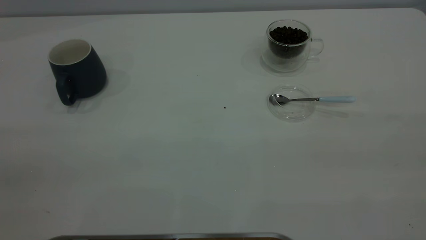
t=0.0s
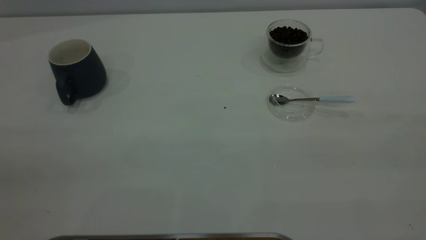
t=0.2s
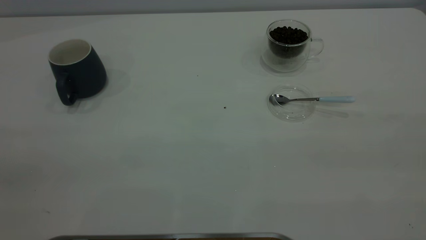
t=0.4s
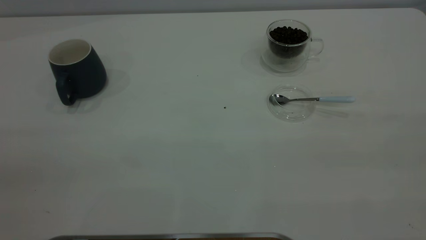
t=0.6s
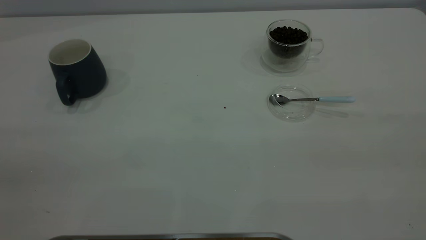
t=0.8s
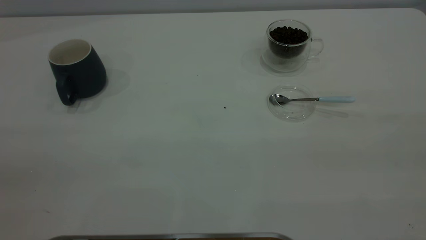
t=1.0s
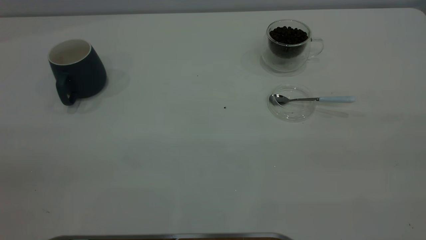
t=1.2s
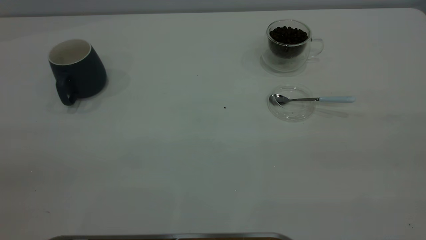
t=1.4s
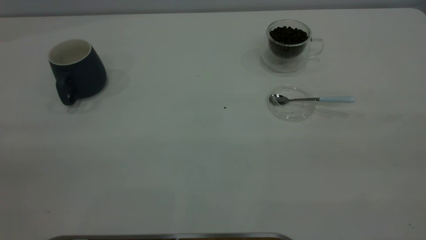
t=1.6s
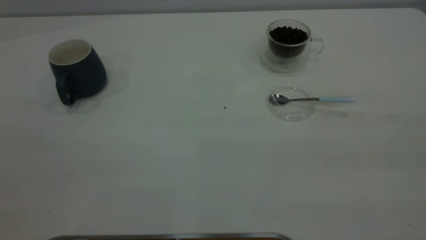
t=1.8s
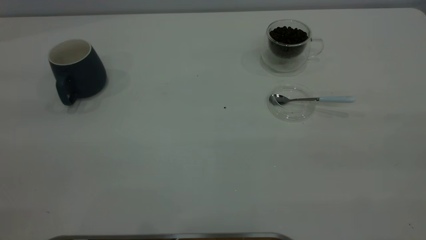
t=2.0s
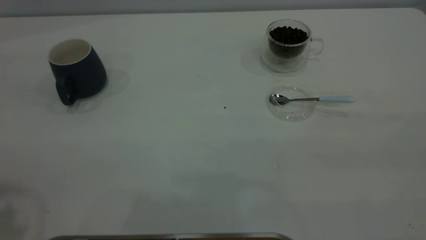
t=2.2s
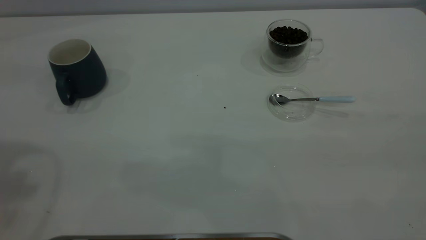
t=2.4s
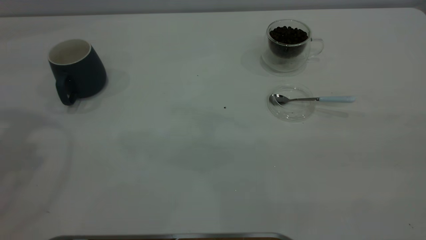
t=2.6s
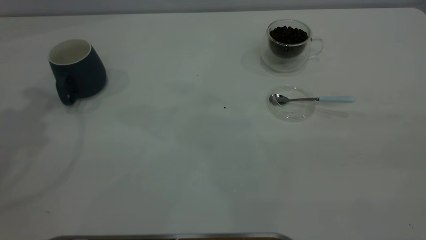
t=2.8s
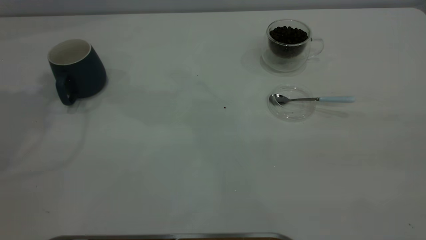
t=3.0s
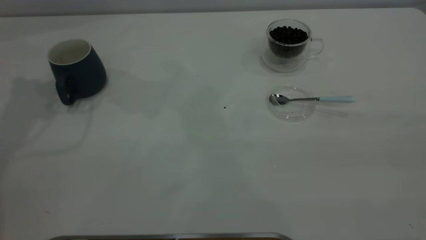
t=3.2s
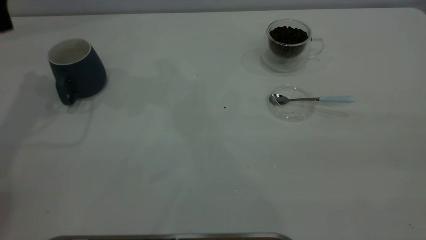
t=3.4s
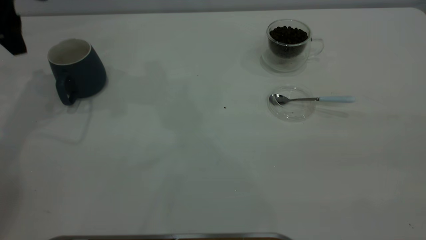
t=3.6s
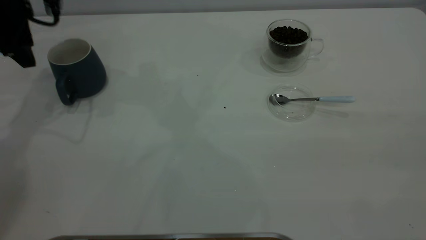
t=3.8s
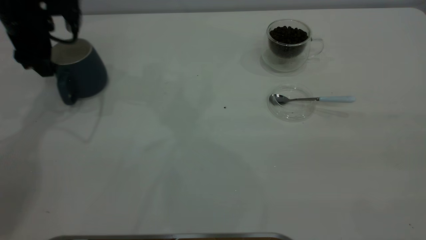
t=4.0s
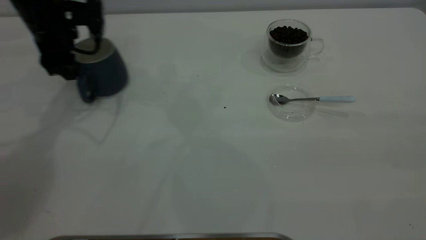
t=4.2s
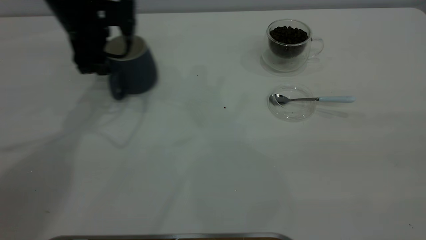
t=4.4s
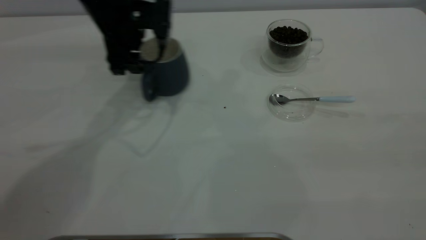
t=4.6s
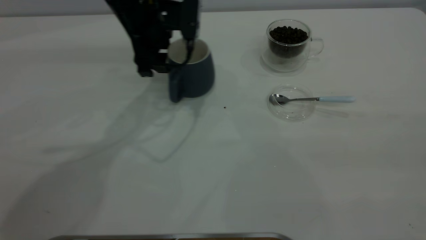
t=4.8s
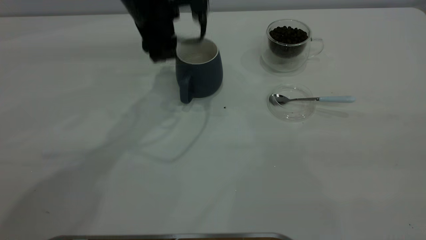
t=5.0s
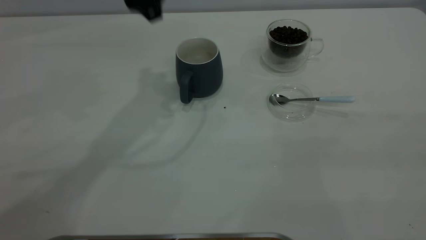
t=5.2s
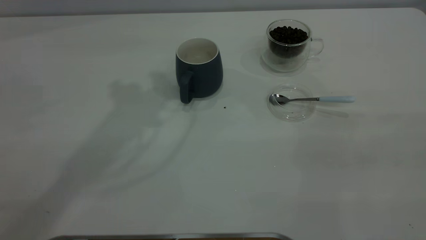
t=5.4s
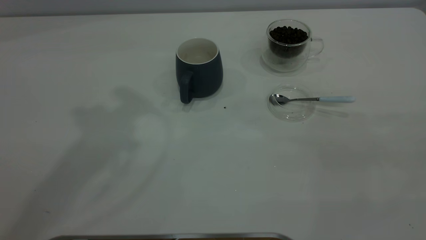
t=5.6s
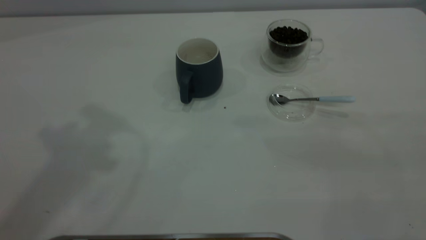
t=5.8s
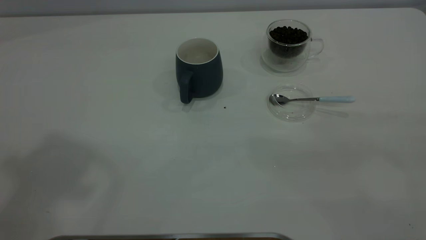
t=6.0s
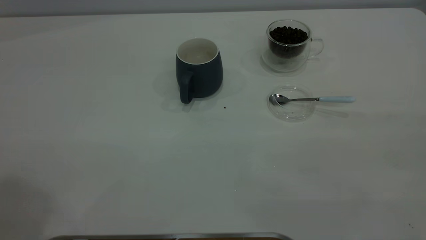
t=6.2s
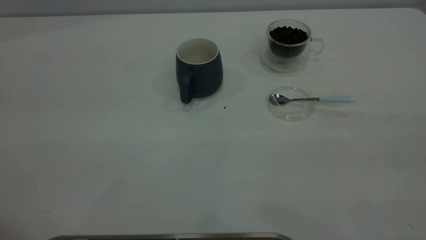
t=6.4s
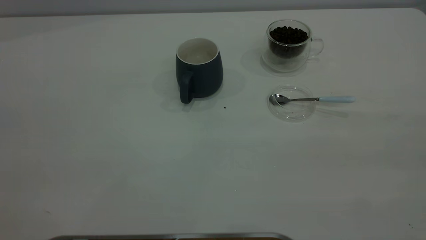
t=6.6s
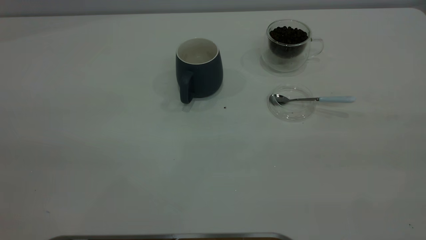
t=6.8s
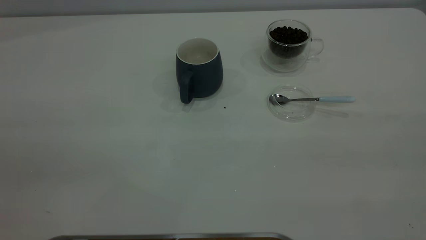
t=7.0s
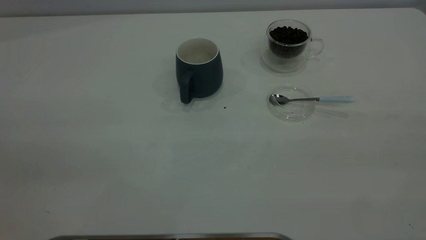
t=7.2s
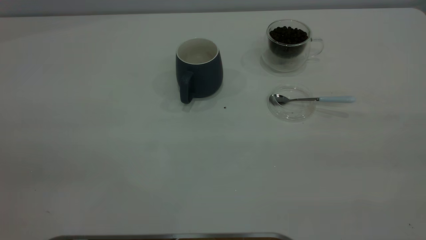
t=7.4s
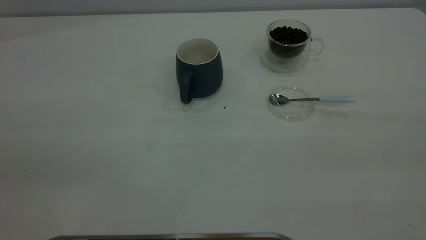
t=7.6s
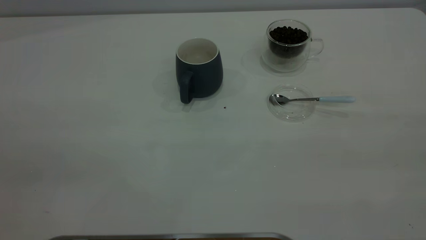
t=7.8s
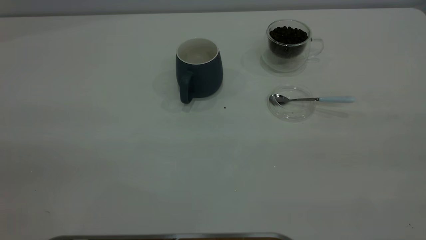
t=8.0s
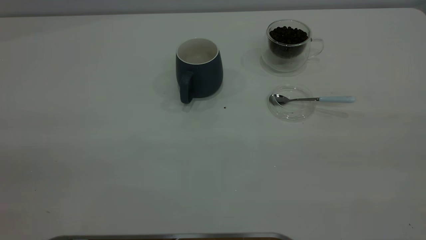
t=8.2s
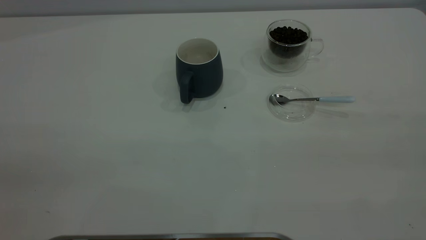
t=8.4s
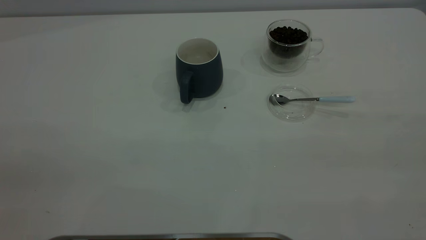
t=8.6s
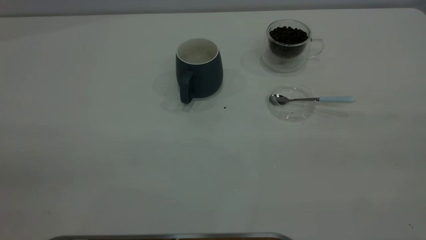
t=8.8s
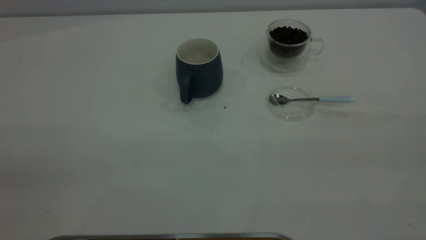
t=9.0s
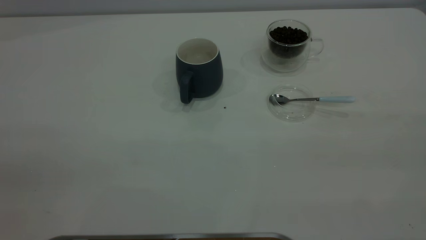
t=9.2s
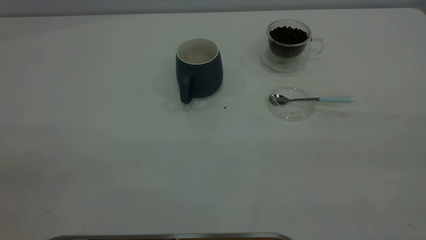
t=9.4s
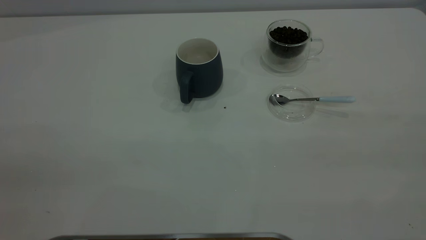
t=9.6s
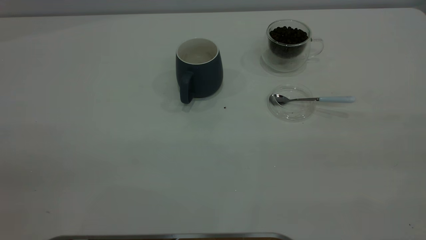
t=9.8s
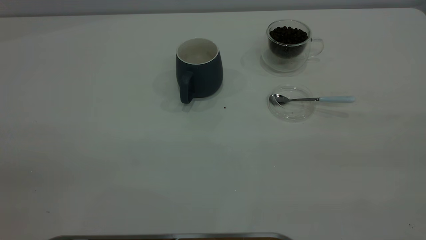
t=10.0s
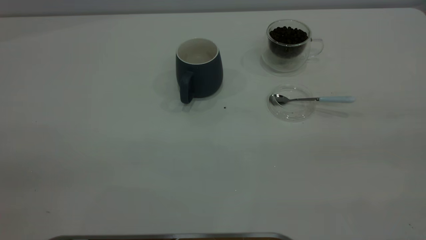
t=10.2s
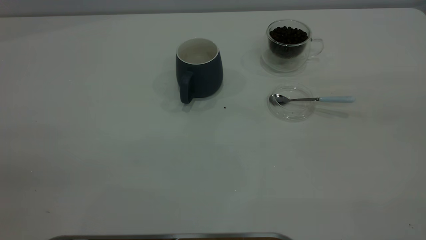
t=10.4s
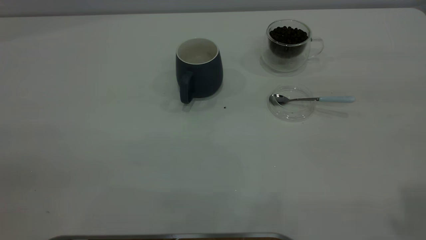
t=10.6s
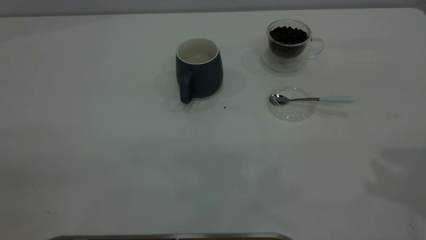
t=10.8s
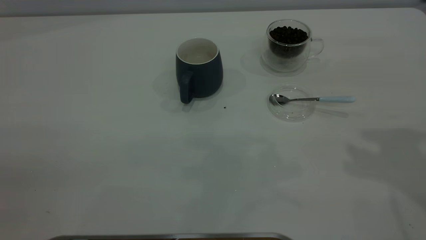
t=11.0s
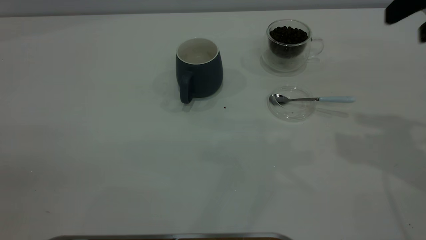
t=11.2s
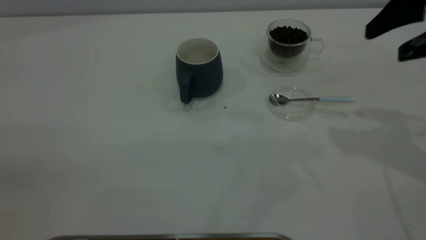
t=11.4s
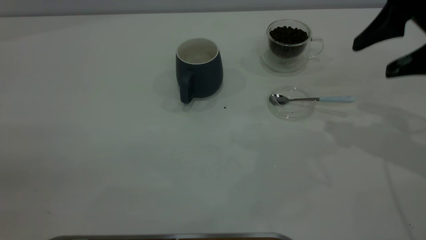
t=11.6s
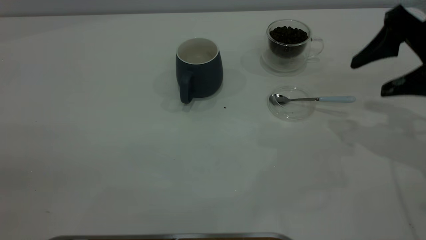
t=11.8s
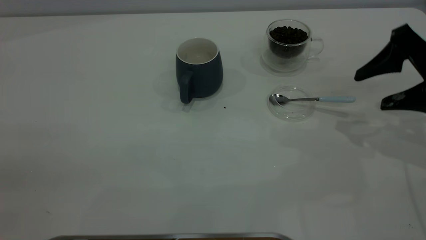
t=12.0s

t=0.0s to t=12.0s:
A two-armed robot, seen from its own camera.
Task of the whole recording: the left gripper place the grey cup in the center of the table, the right gripper take the blue spoon from the cup lid and scoop out the coffee beans from the coffee cup and put them into the grey cup, the right gripper put the spoon back into the cup lid.
Step, t=0.0s to t=5.0s: Move the cup to the center of view.
t=3.0s to t=4.4s: The left gripper is displaced downward and to the right by approximately 25 cm.
t=4.4s to t=6.0s: The left gripper moves upward and backward, about 50 cm.
t=10.4s to t=12.0s: The right gripper heads downward and forward, covering about 35 cm.

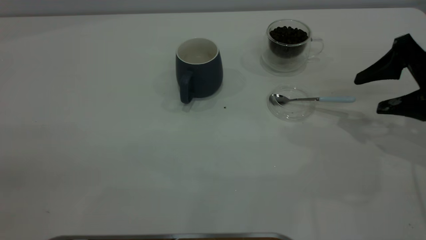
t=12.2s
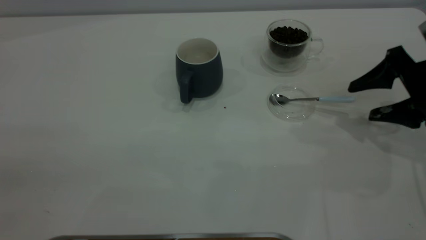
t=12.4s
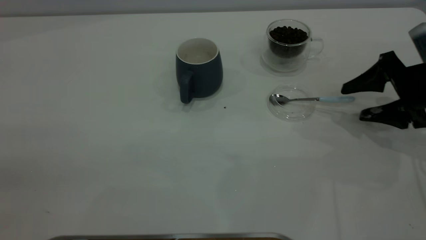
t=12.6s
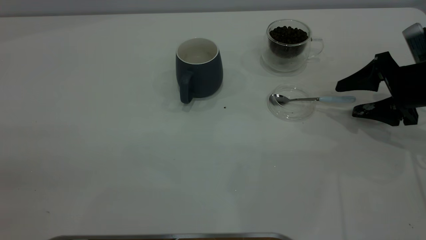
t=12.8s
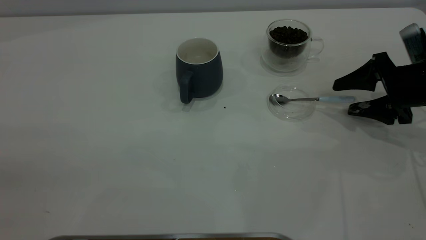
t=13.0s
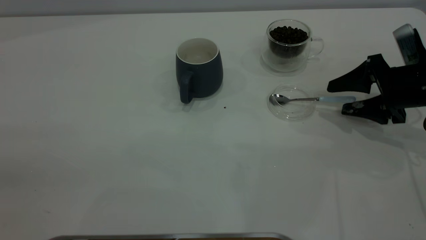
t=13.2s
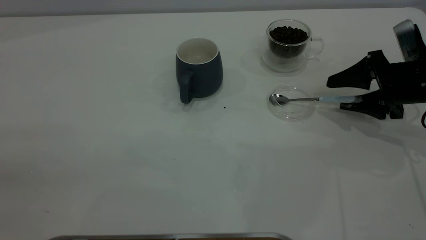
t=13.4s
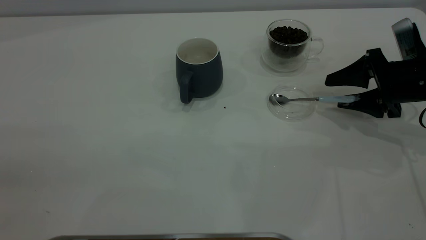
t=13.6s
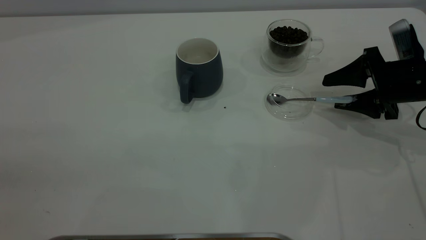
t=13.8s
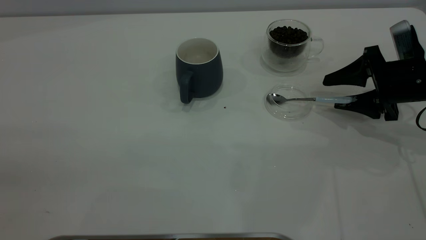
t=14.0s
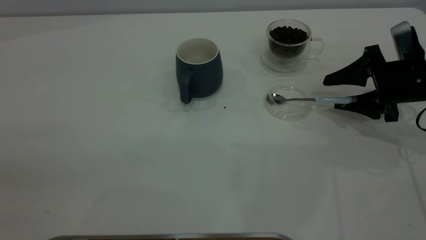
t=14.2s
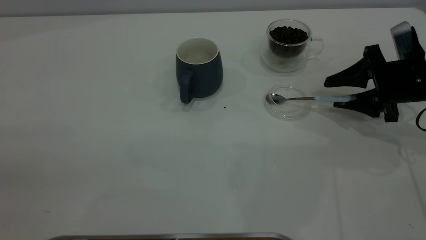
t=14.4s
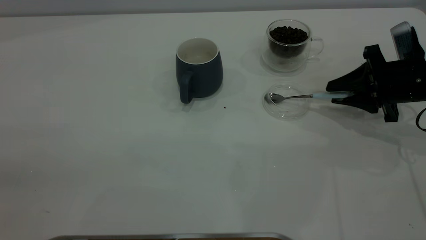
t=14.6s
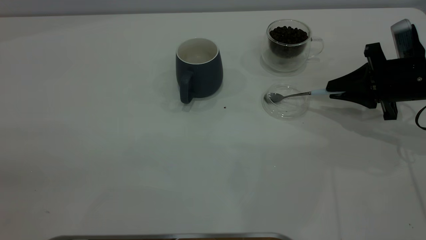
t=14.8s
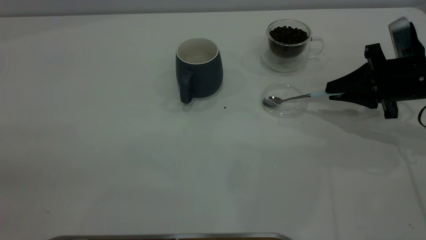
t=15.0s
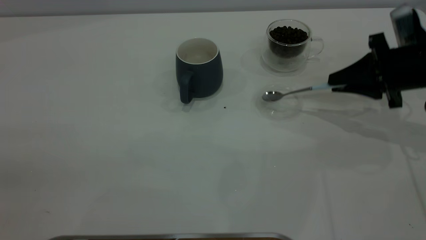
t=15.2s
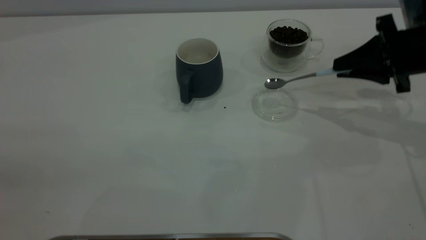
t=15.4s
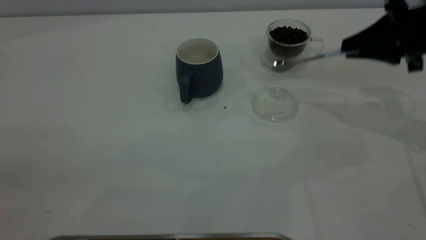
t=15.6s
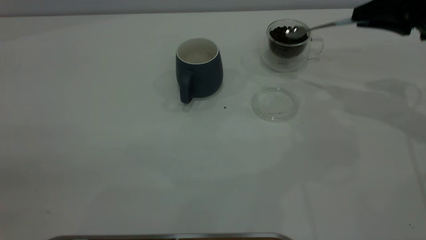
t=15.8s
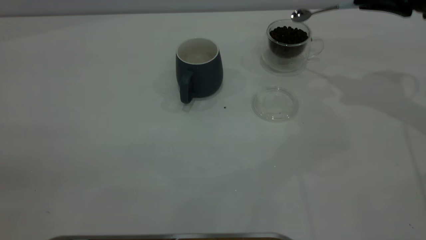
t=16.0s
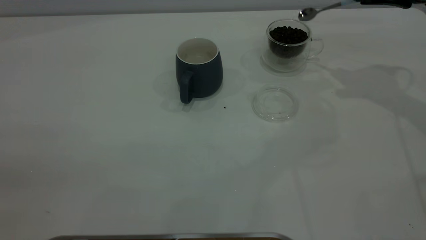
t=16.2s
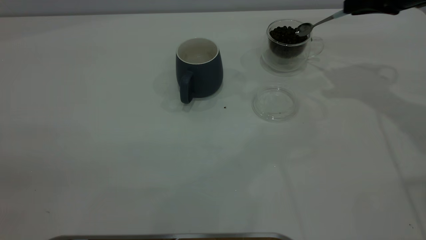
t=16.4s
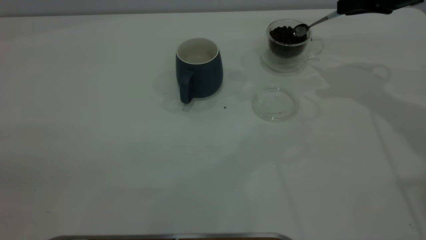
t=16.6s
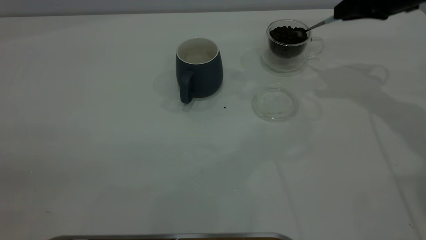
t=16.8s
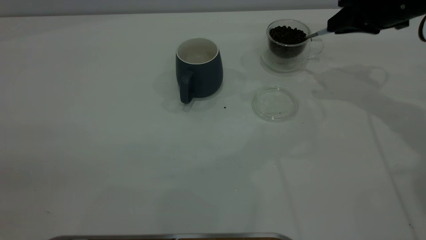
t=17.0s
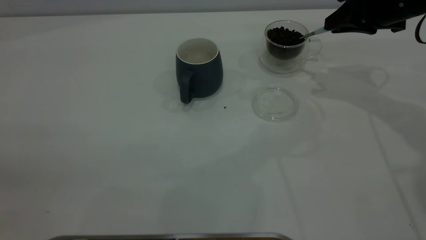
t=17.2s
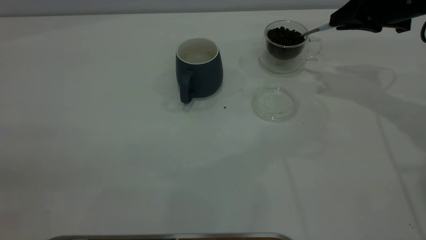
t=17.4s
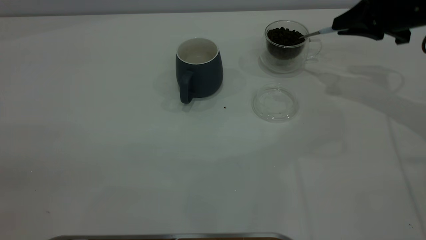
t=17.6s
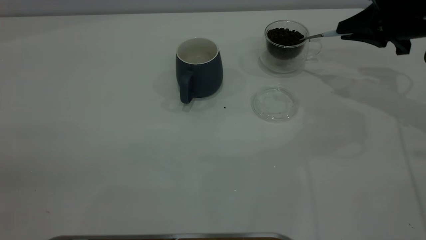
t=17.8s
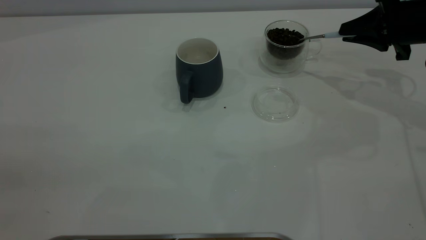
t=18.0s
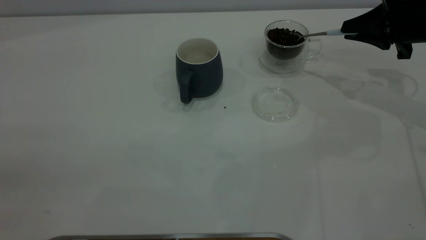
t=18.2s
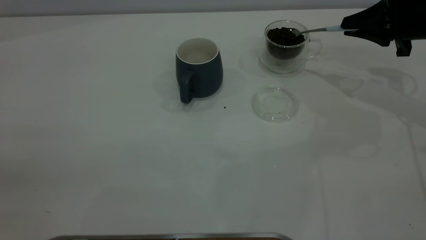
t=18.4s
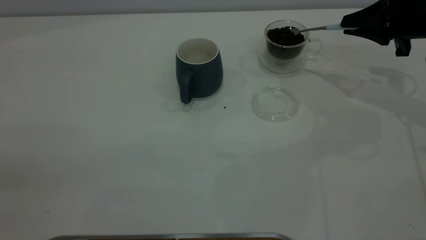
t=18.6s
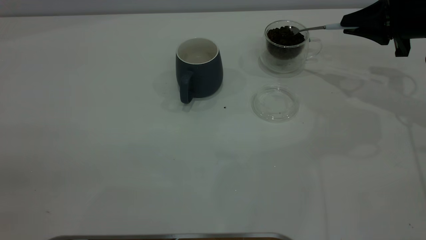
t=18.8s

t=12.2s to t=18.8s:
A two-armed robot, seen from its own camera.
Task of the whole recording: the left gripper place the grey cup in the center of the table, the right gripper take the blue spoon from the cup lid and scoop out the coffee beans from the coffee cup and put them into the grey cup, the right gripper put the spoon back into the cup lid.
Step, t=12.2s to t=15.4s: Pick up the spoon.
t=12.2s to t=13.8s: The right gripper heads downward, covering roughly 5 cm.
t=13.8s to t=15.4s: The right gripper heads upward, covering approximately 5 cm, and closes.
t=15.4s to t=17.2s: The right gripper heads forward, covering approximately 5 cm.
t=17.2s to t=18.8s: The right gripper moves some 5 cm.
